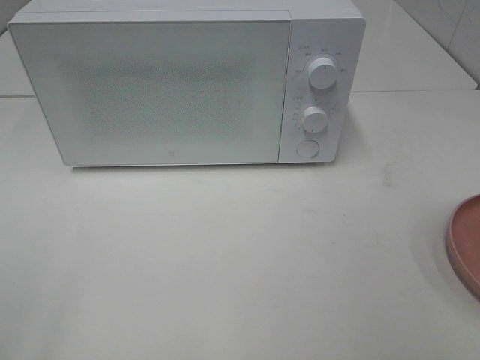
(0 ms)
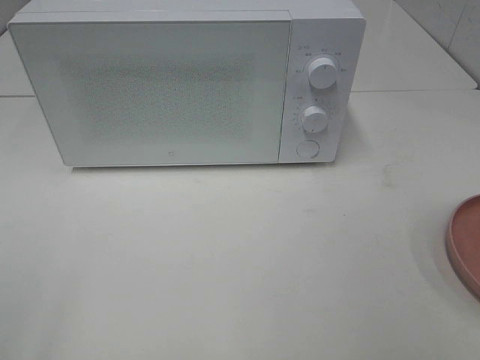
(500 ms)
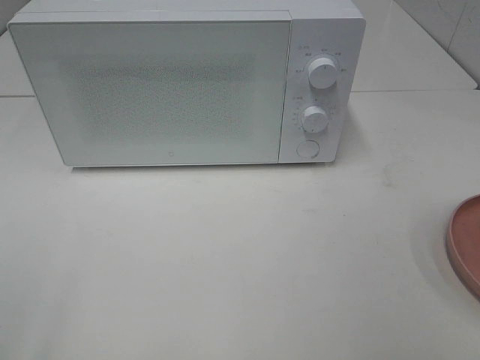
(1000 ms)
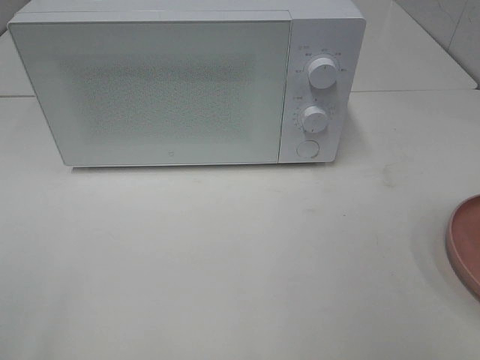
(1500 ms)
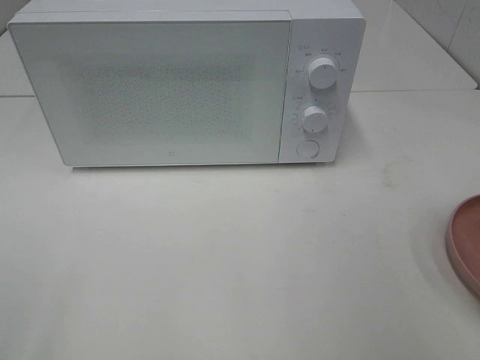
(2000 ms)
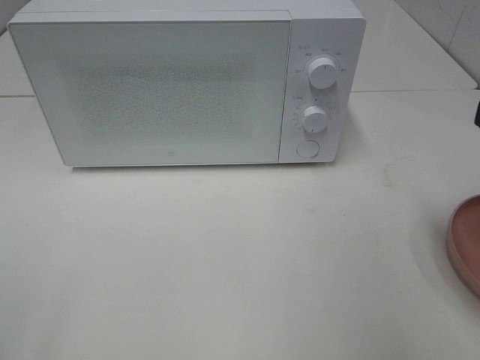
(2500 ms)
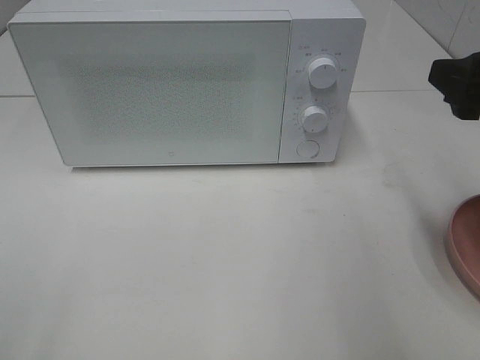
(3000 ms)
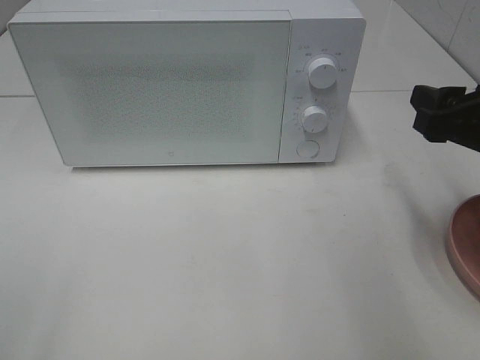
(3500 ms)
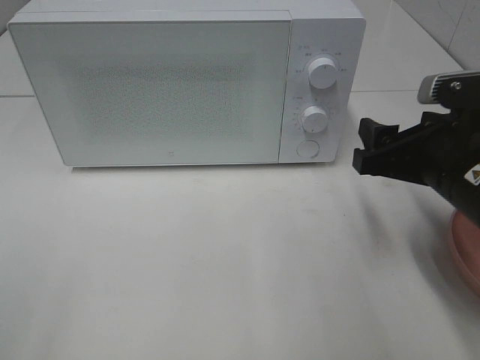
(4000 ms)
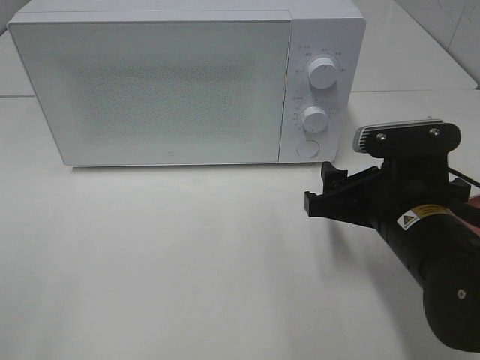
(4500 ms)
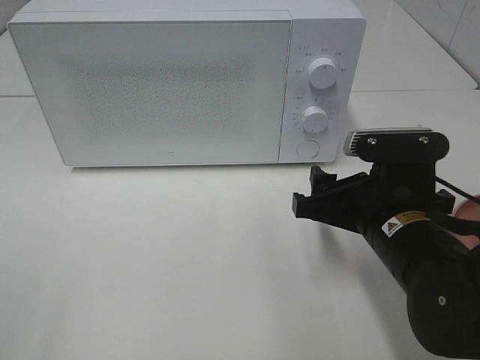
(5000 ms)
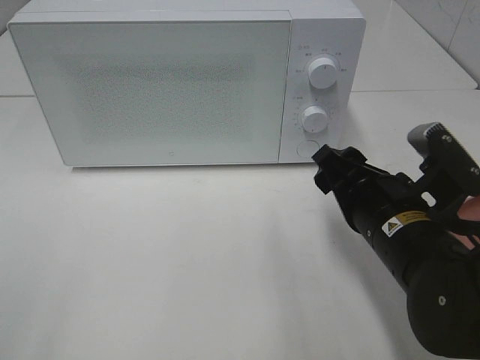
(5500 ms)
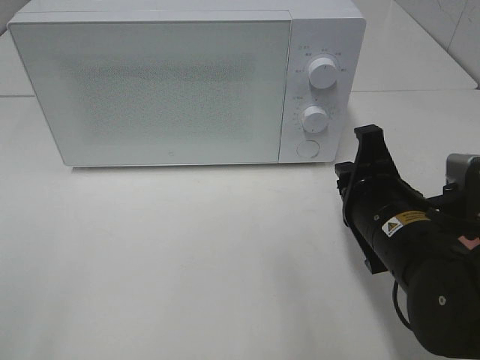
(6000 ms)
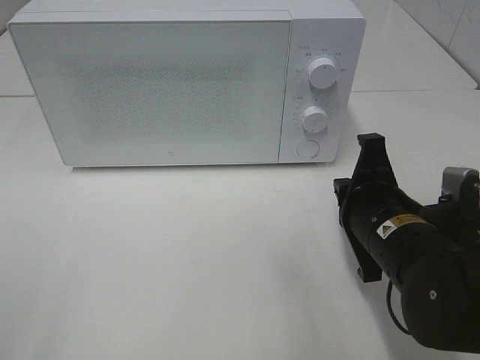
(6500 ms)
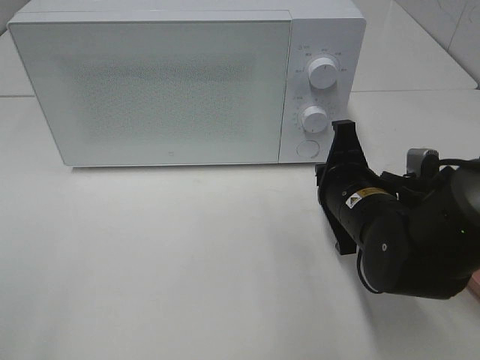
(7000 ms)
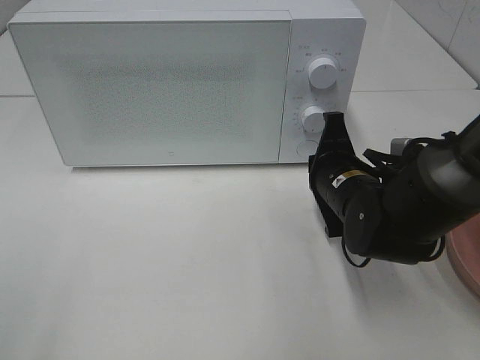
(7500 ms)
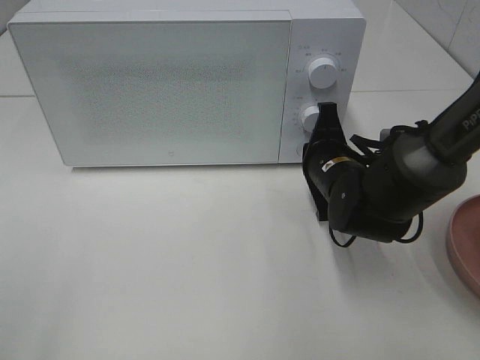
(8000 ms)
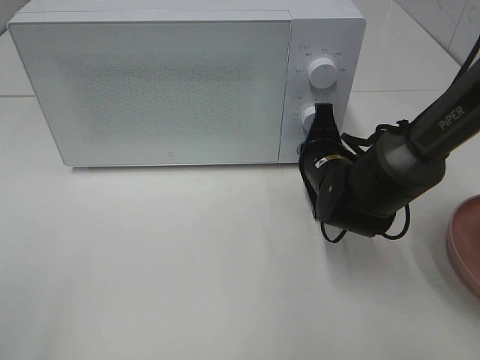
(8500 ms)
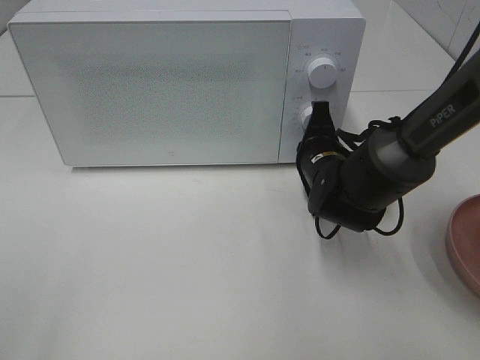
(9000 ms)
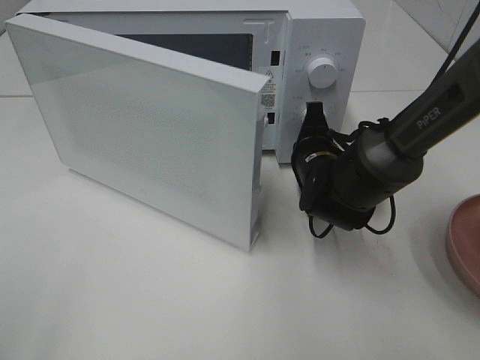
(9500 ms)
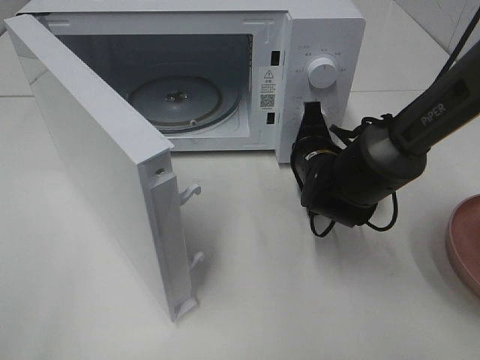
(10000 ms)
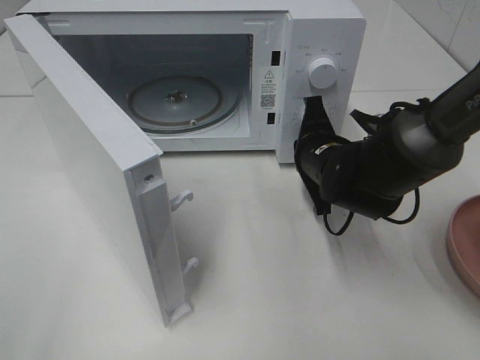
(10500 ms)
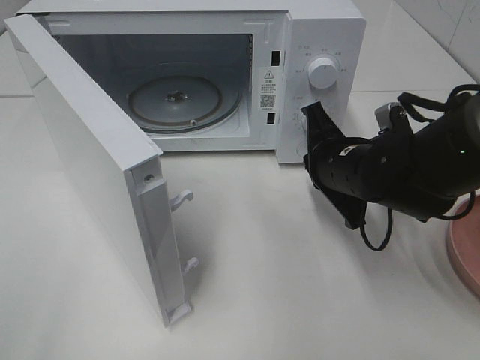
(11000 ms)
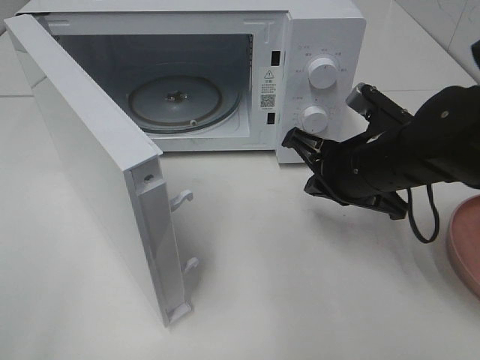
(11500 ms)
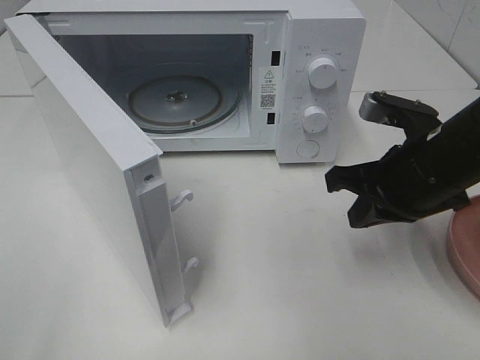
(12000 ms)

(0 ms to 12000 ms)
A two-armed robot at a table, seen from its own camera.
Task of the whole recording: Heat the burger.
Step, 0 ms - 10500 ms: Right hand: press the switch.
2000 ms - 4000 ms: The right gripper moves forward, downward and to the left, some 20 cm.
4000 ms - 6000 ms: The right gripper goes about 5 cm to the left, and closes.
6000 ms - 8000 ms: The right gripper goes some 10 cm forward.
10000 ms - 12000 ms: The right gripper moves backward, upward and to the right, about 15 cm.

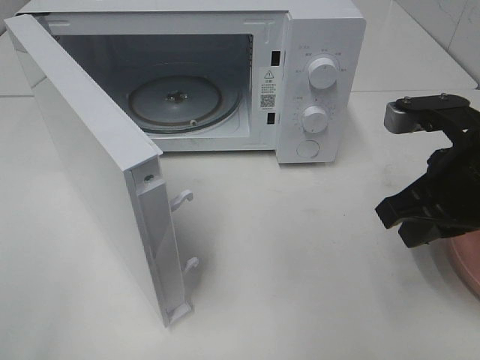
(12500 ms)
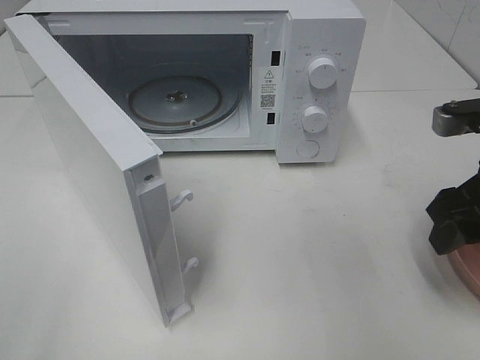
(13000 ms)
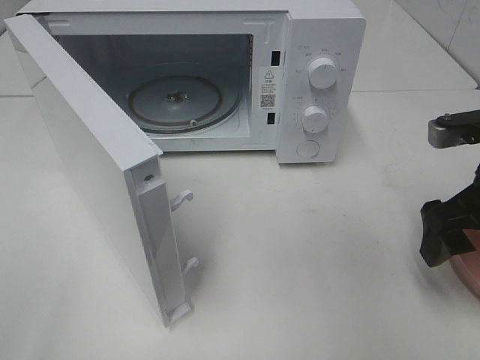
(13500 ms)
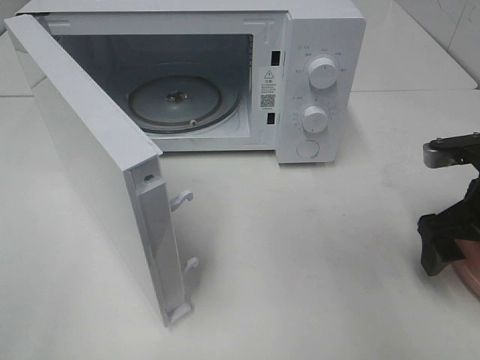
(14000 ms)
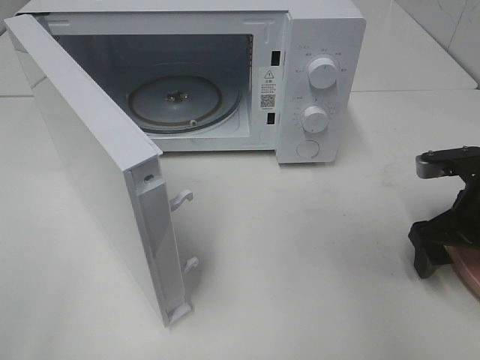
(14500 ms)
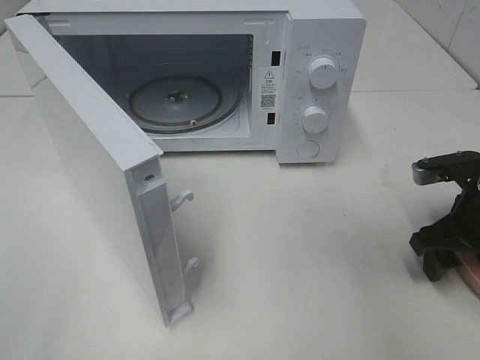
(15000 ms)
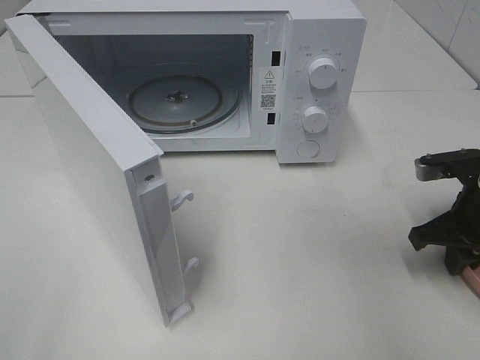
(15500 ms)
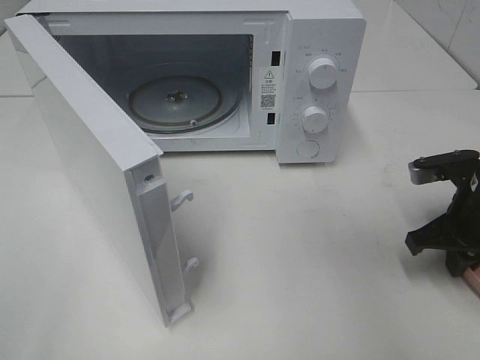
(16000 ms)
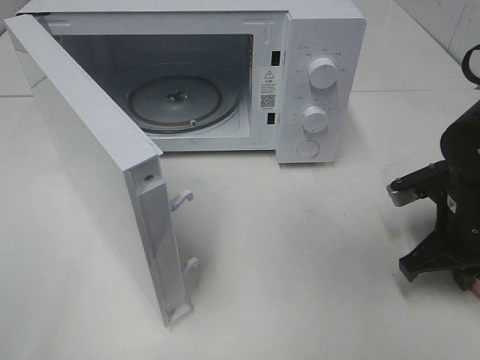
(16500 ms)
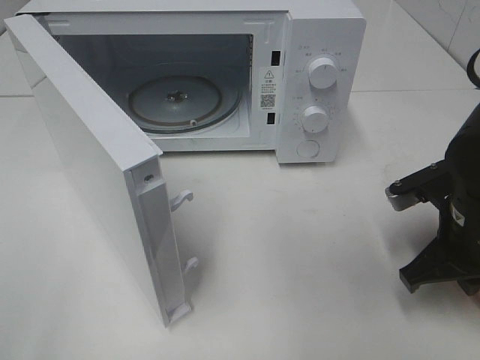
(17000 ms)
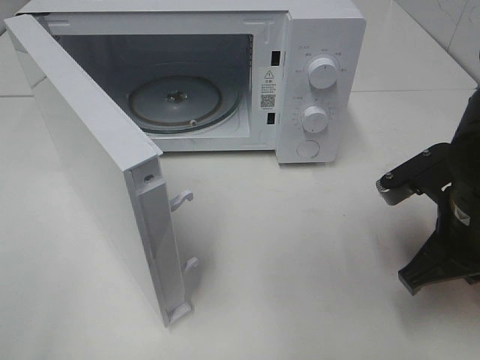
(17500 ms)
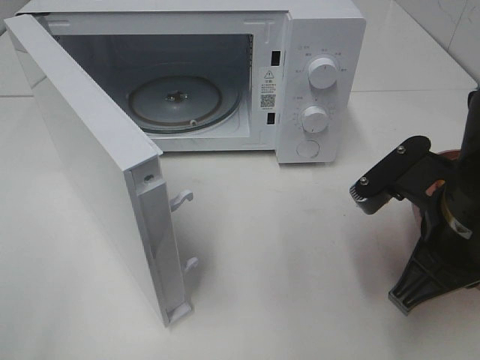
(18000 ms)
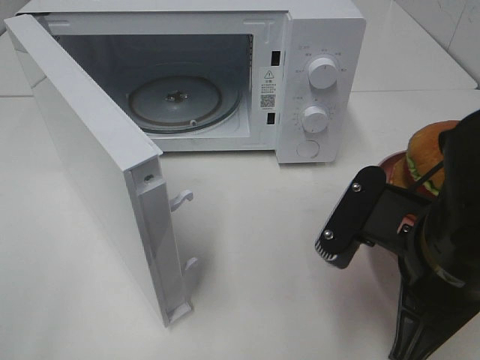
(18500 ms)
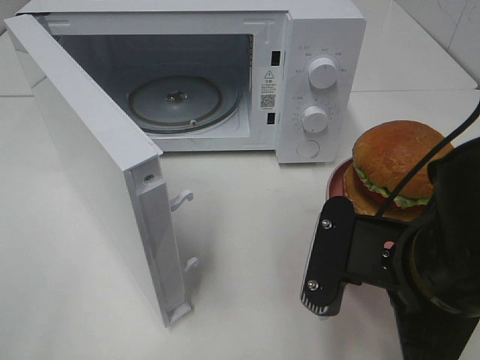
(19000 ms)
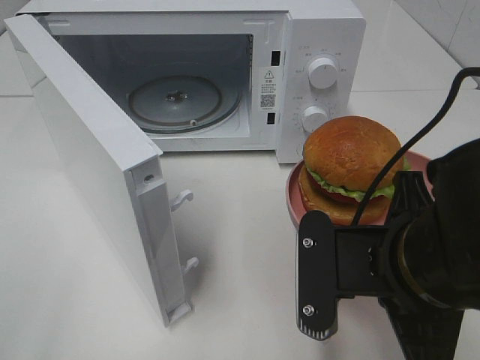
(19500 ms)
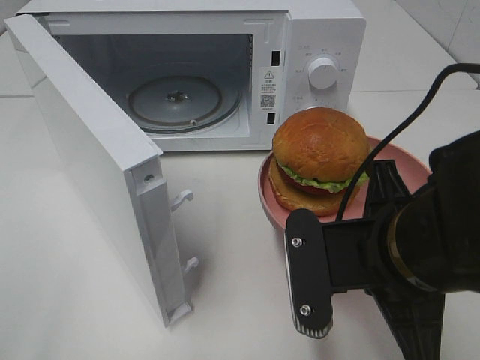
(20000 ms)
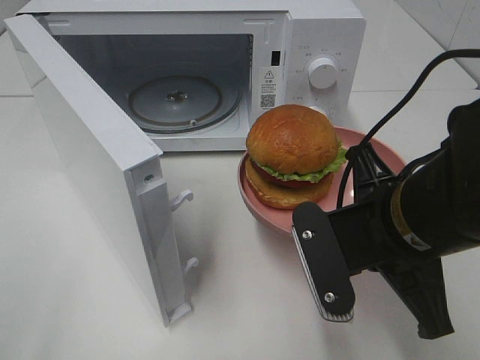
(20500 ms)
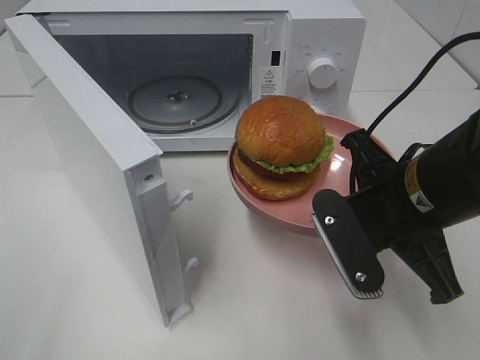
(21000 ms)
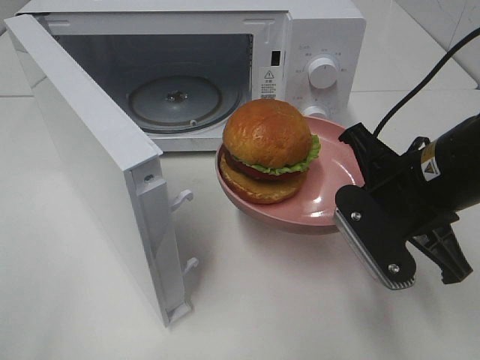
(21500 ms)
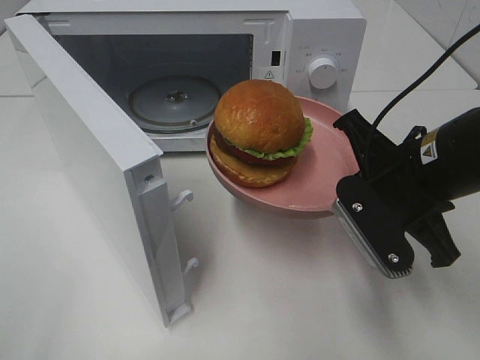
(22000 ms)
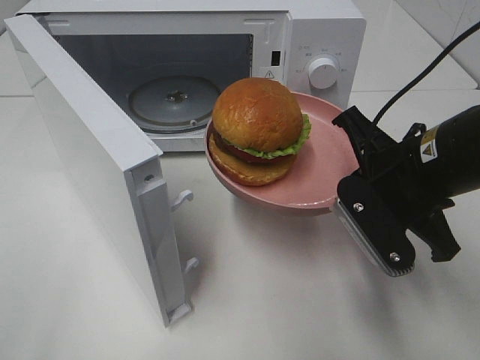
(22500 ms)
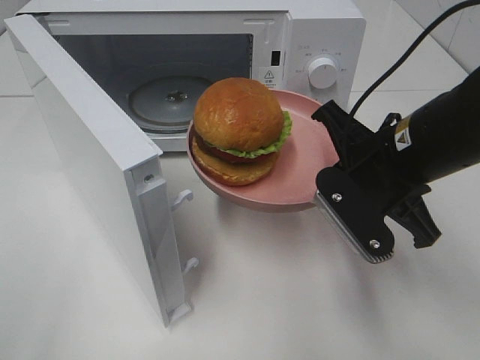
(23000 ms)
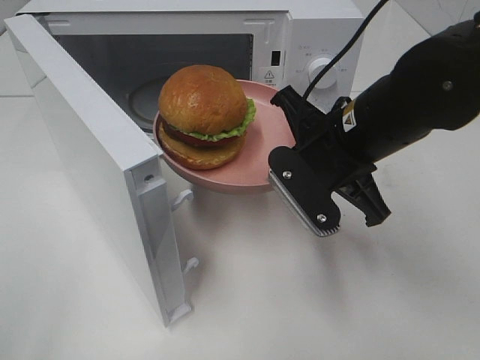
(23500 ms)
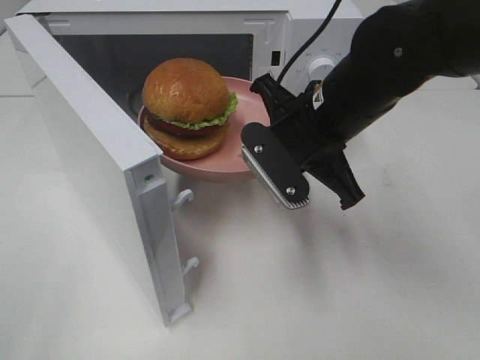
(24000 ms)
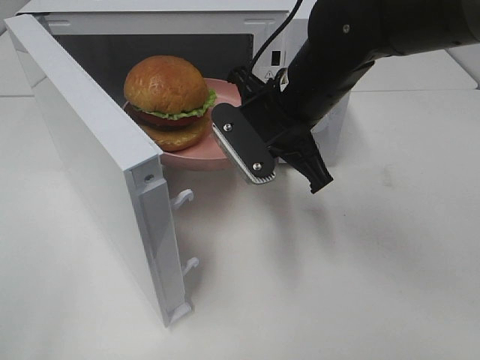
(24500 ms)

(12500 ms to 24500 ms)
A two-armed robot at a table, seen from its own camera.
Task of the whole recording: Heat the burger.
Step, 12500 ms - 16500 ms: Right hand: grab the plate with the hamburger.
12500 ms - 14500 ms: The right gripper is displaced downward and to the right by roughly 10 cm, and opens.
14500 ms - 16500 ms: The right gripper closes up.
16500 ms - 18500 ms: The right gripper shifts some 15 cm backward, to the left and upward.
20500 ms - 22500 ms: The right gripper shifts approximately 5 cm forward.
22500 ms - 24500 ms: The right gripper is displaced to the left and forward by approximately 15 cm.

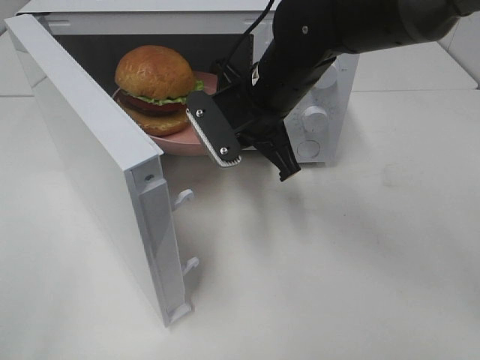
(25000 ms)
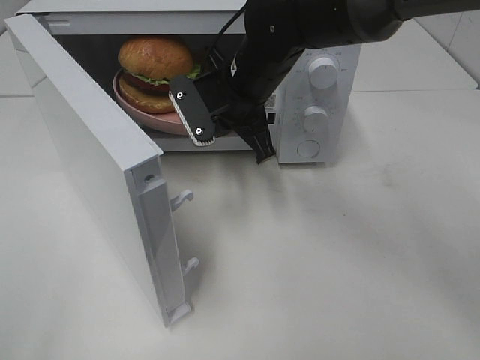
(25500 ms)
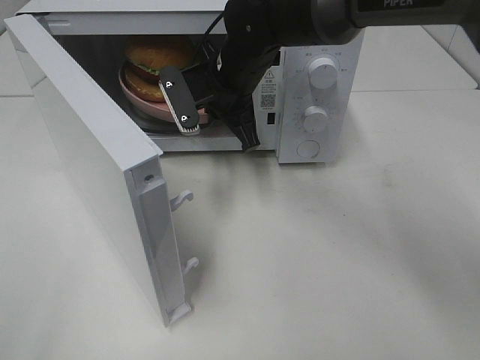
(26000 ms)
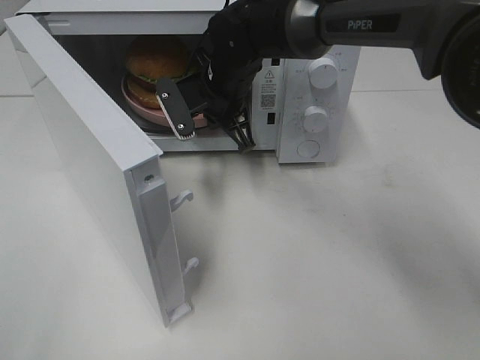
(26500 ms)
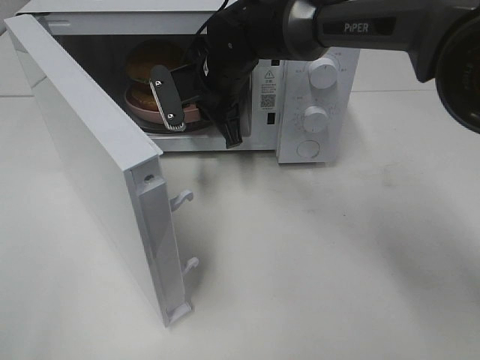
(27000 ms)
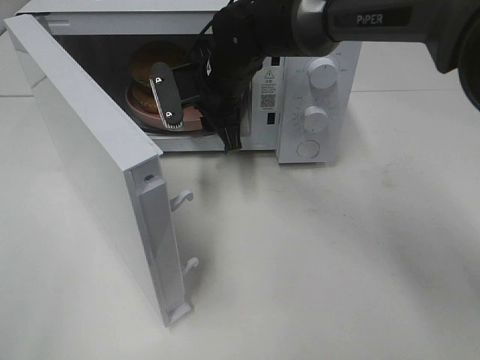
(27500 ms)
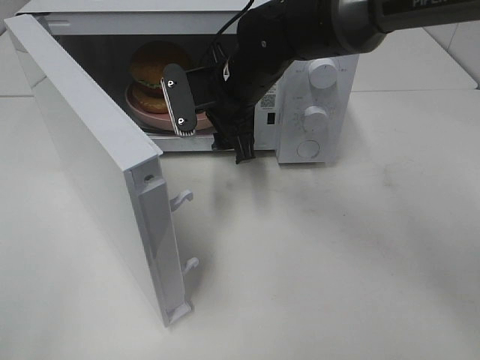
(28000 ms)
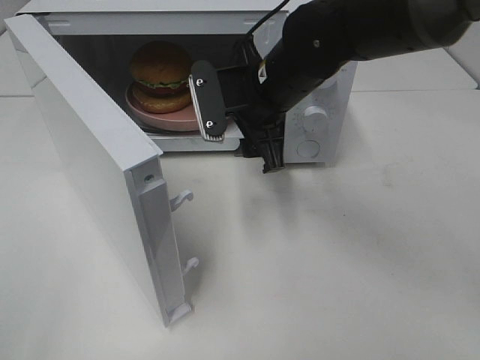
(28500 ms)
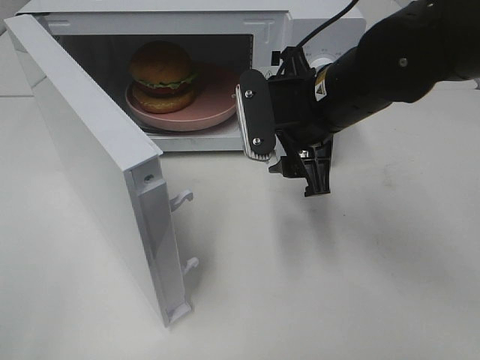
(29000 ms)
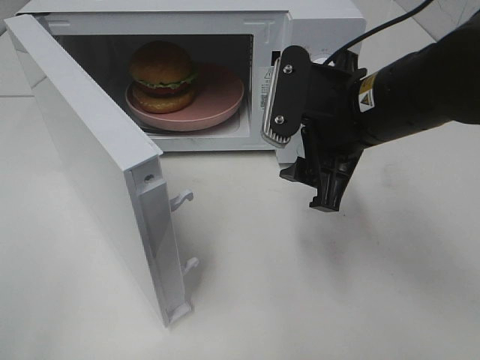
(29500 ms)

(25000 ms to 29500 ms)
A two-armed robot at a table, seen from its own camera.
Task of the whole recording: Heat the burger.
Step, 25000 ms - 27000 ms: Right hand: place the plate in the microwave.
25000 ms - 27000 ms: The right gripper goes about 10 cm forward and to the left.
27000 ms - 29500 ms: The right gripper goes some 20 cm backward and to the right, and opens.
